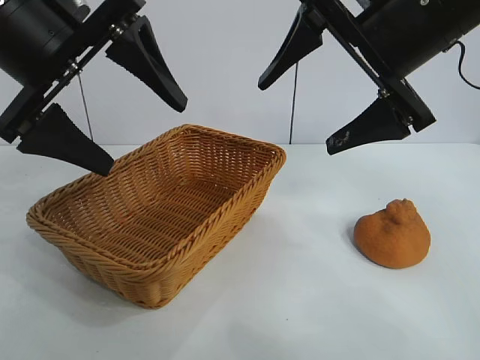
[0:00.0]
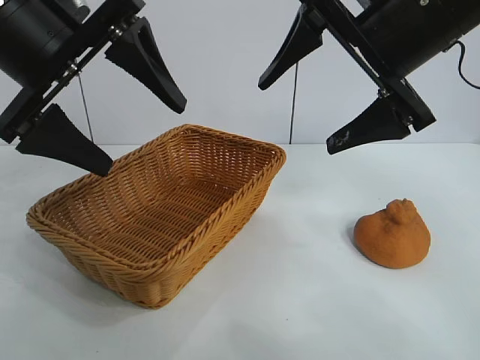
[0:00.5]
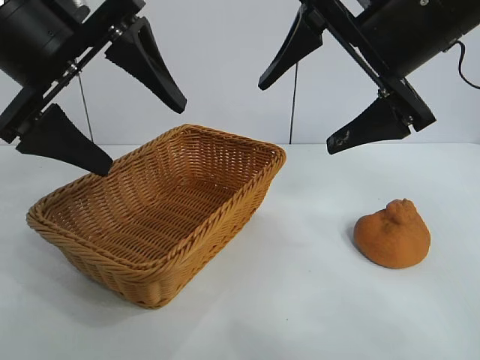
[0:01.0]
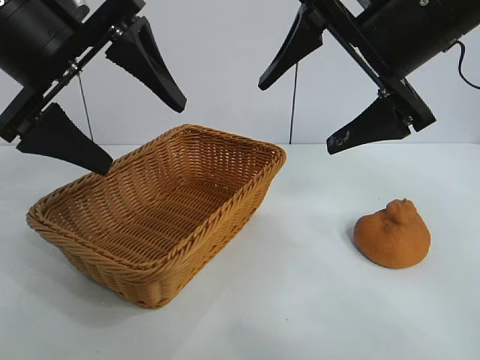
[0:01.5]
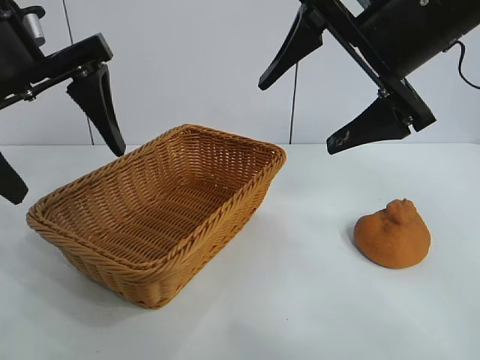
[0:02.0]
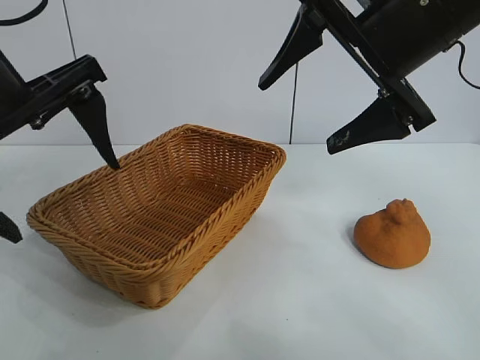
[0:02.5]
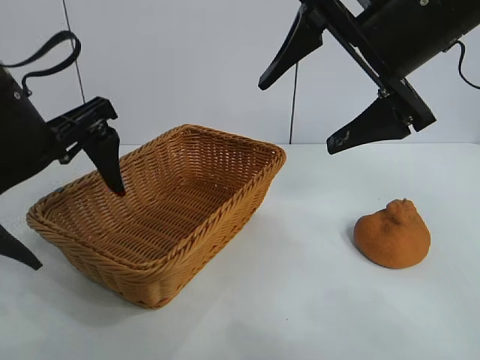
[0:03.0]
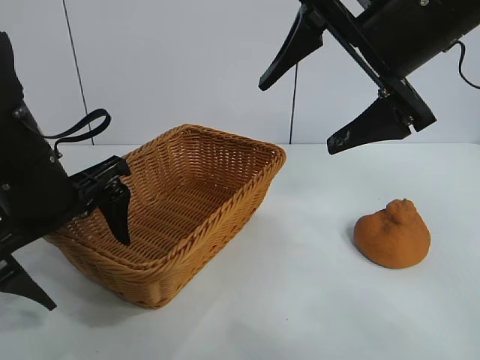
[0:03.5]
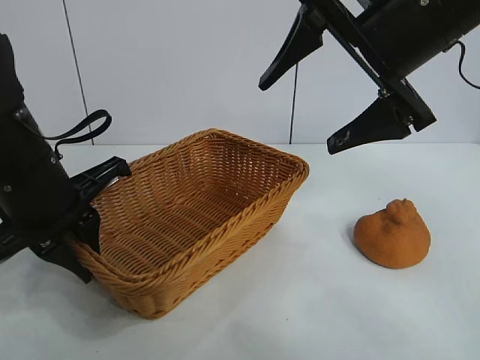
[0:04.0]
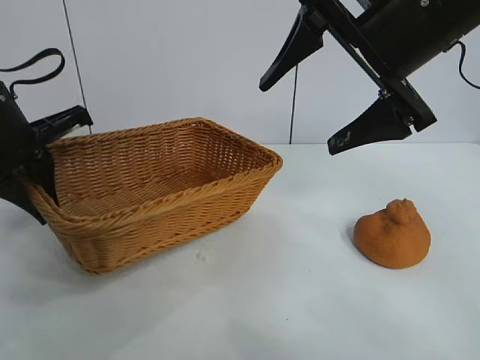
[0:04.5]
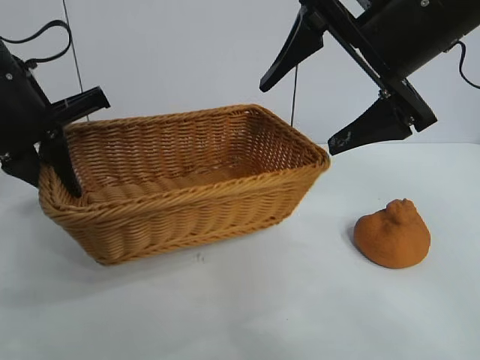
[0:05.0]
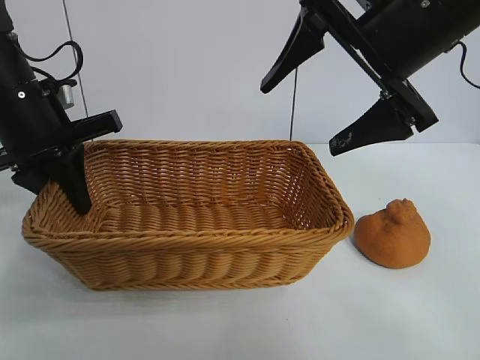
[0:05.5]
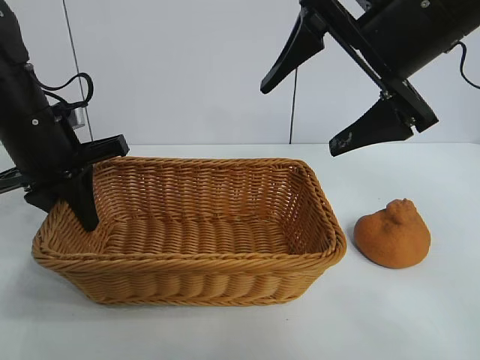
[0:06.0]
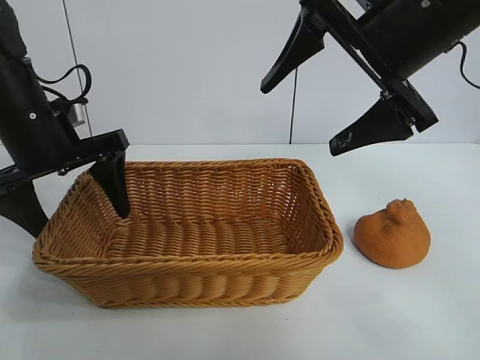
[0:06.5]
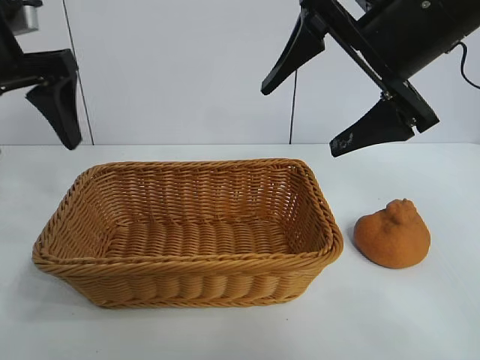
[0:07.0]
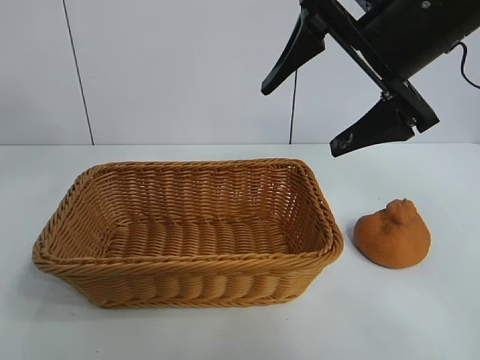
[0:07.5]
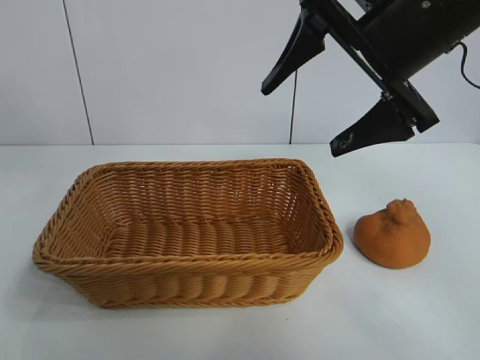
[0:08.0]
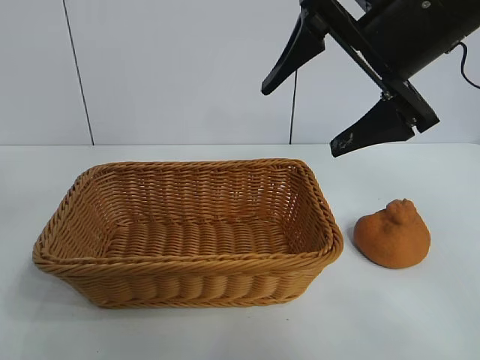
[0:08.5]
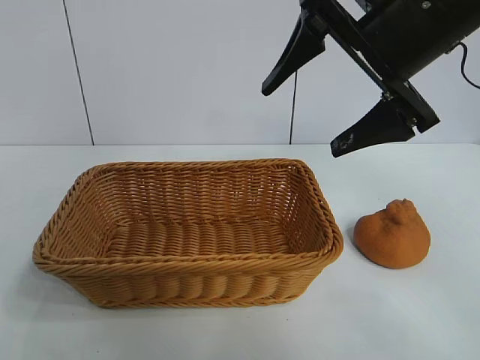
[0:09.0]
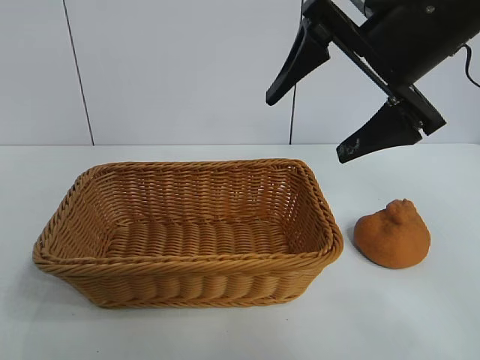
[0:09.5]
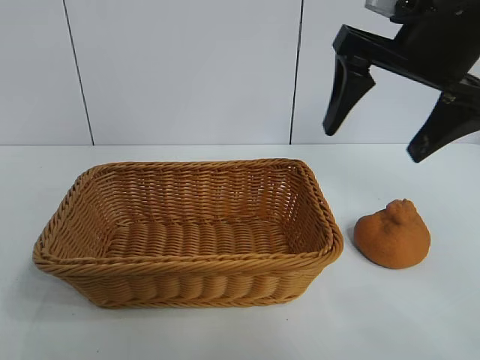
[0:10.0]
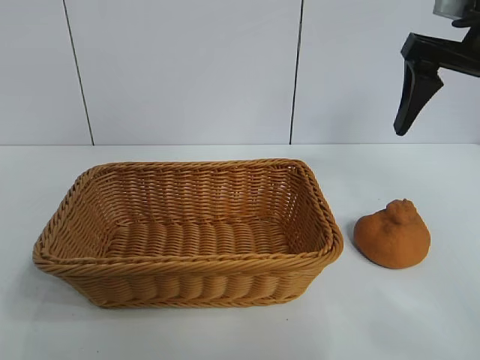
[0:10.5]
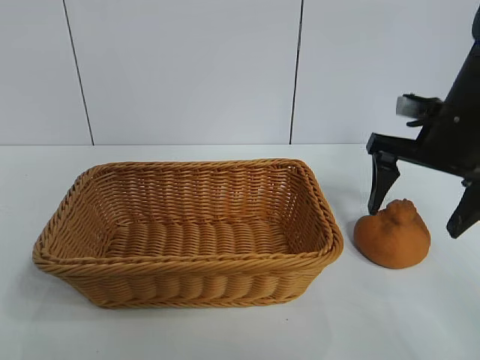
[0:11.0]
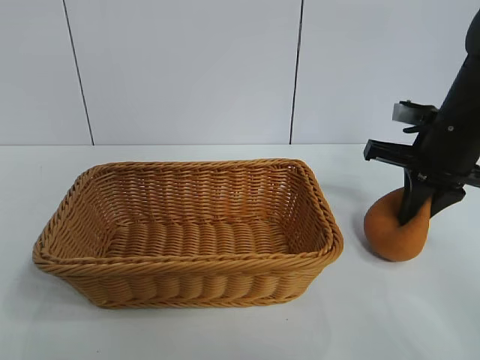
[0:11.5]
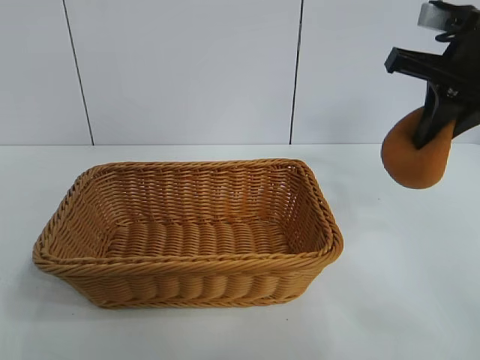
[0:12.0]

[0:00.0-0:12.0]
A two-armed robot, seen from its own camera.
Task of the whole recording: pick up the orange and put it into the basket.
Step, 0:02.0 to 0:03.5: Grasp the basket with left gripper.
Step, 0:04.0 to 0:06.5: Place the basket in the center of view with left gripper.
Step, 0:07.0 to 0:11.5: Grasp the orange with right gripper.
